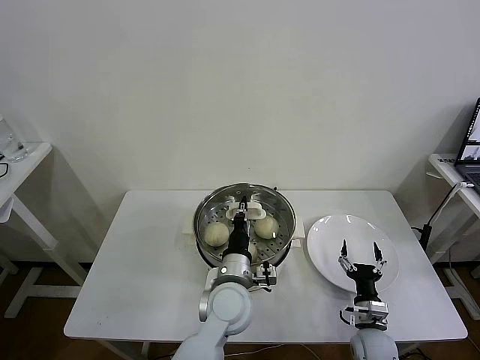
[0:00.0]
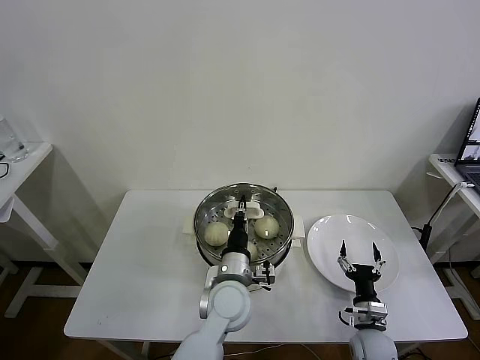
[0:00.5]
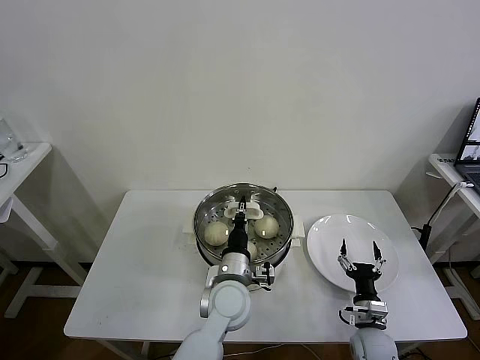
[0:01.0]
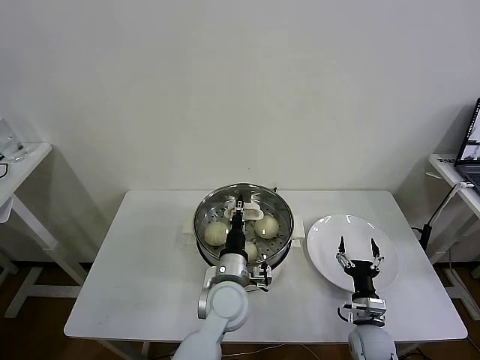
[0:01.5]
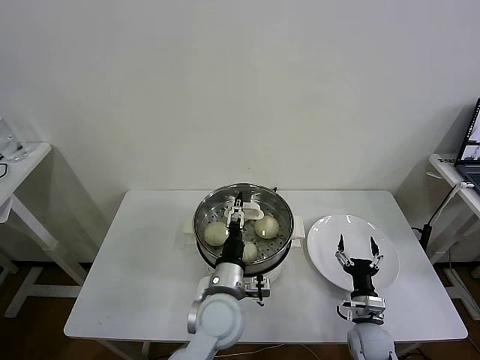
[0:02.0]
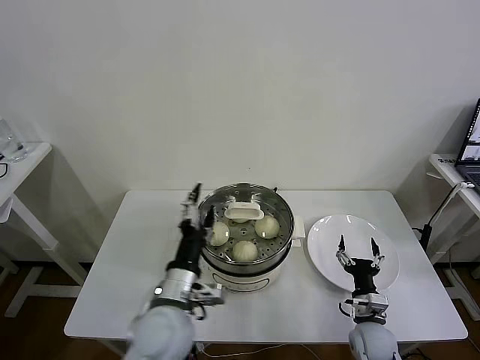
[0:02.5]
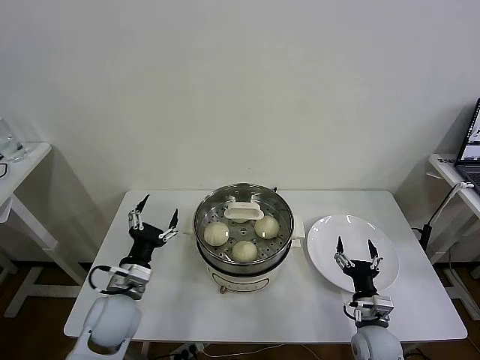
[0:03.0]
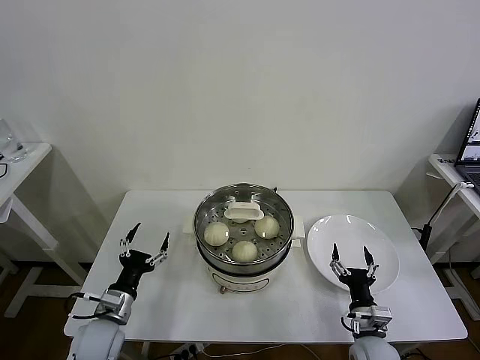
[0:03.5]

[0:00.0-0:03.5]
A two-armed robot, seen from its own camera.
Task of the whole recording: take steamed baozi put them in steamer then cover it.
0:00.0 to 0:02.0: The left gripper opens up.
0:02.0 to 0:03.5: The right gripper shifts by some 5 cm; the left gripper is displaced to the left by some 25 cm.
